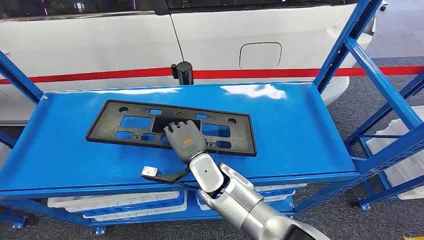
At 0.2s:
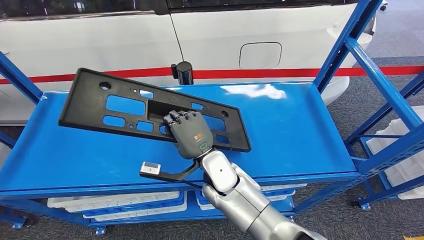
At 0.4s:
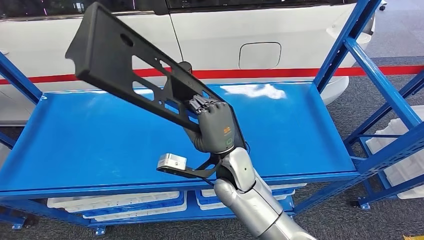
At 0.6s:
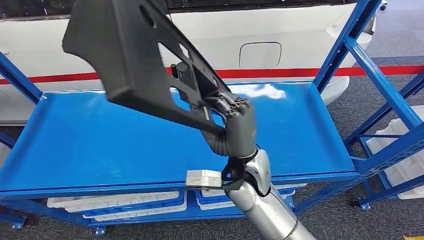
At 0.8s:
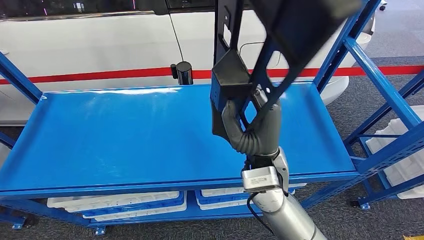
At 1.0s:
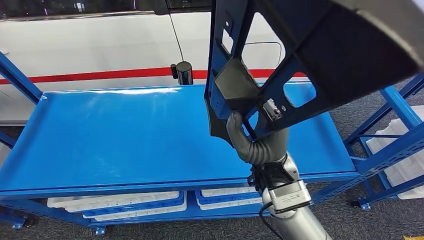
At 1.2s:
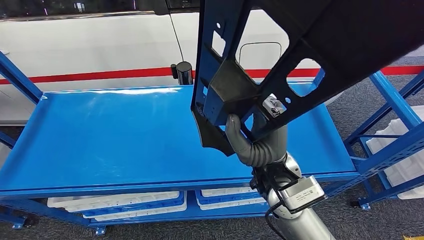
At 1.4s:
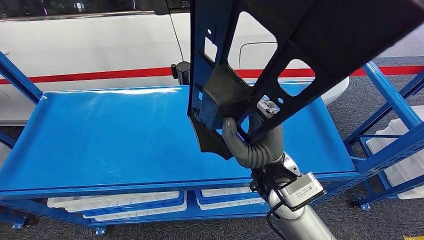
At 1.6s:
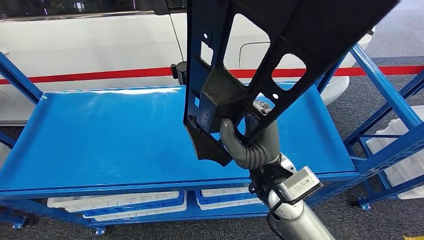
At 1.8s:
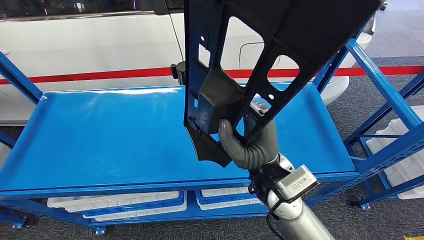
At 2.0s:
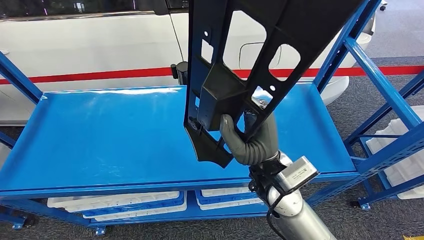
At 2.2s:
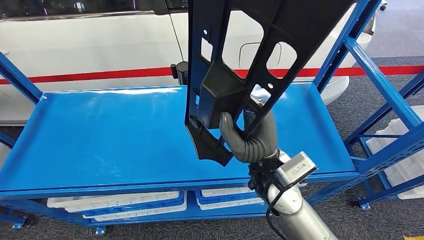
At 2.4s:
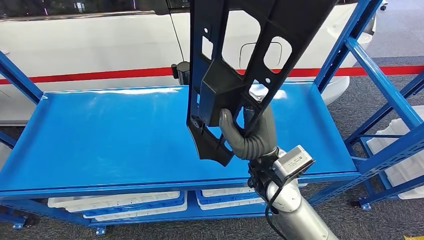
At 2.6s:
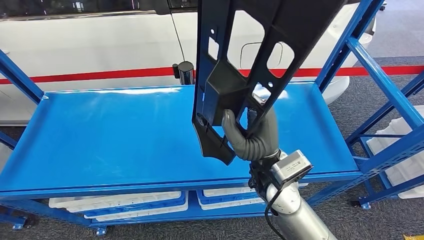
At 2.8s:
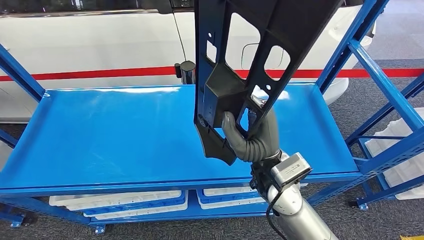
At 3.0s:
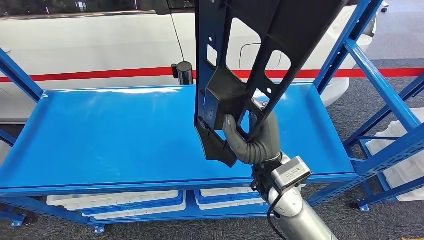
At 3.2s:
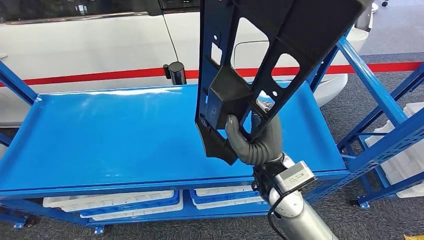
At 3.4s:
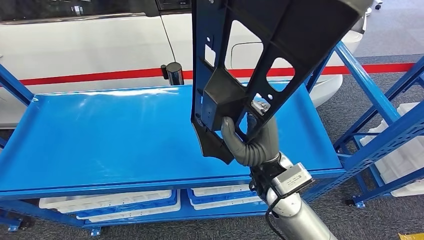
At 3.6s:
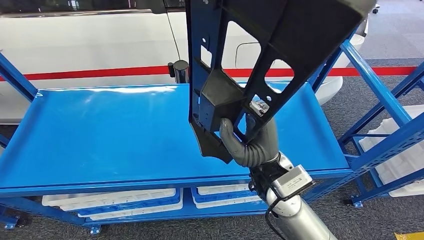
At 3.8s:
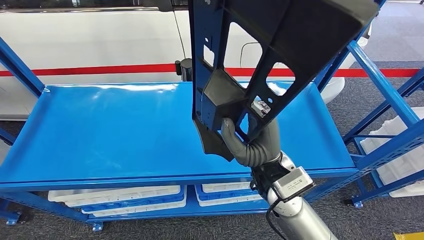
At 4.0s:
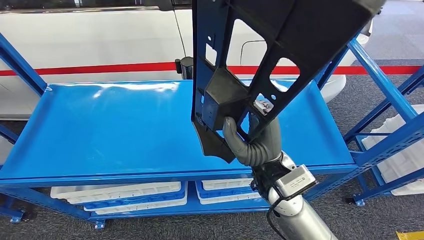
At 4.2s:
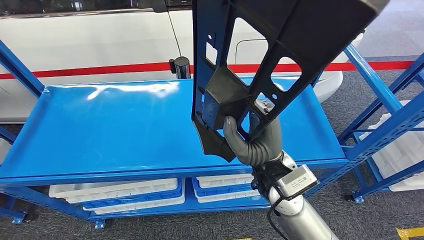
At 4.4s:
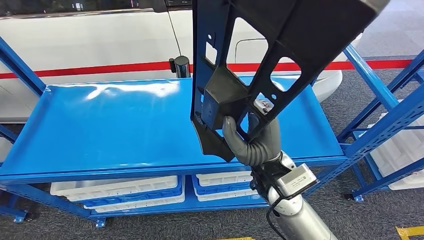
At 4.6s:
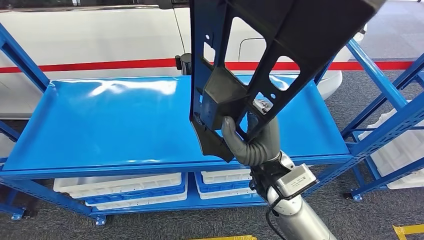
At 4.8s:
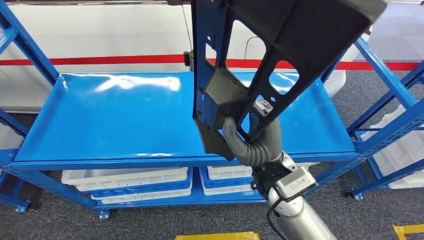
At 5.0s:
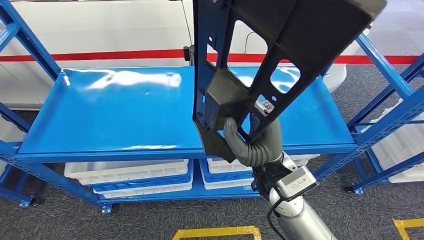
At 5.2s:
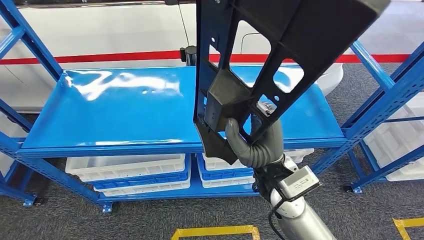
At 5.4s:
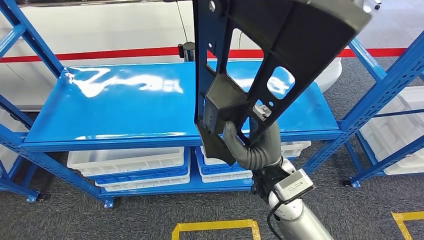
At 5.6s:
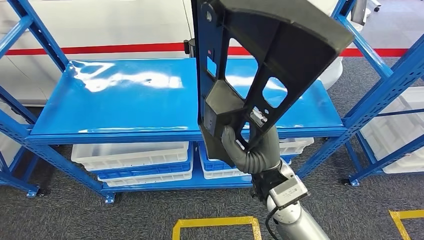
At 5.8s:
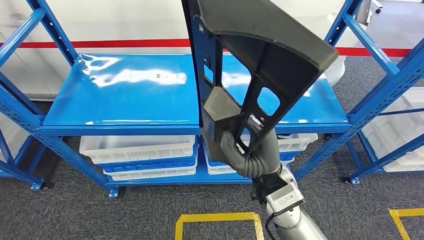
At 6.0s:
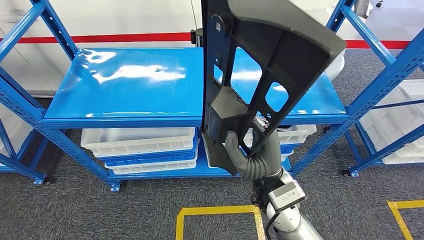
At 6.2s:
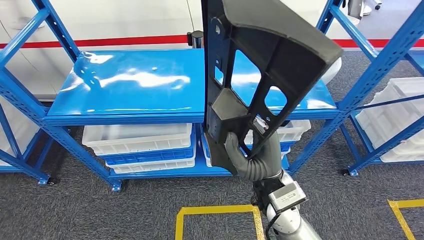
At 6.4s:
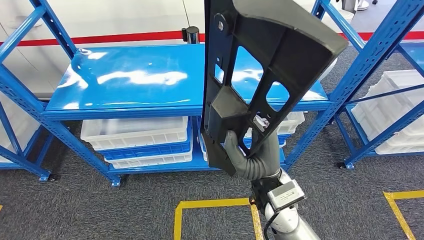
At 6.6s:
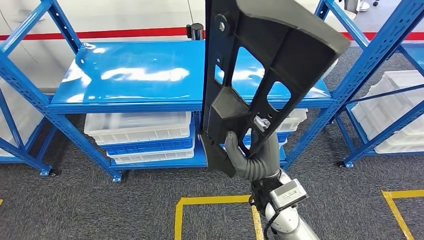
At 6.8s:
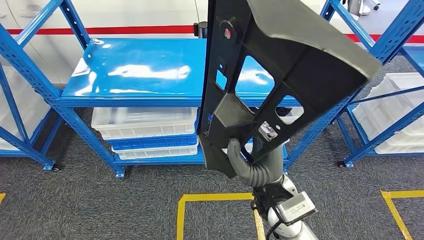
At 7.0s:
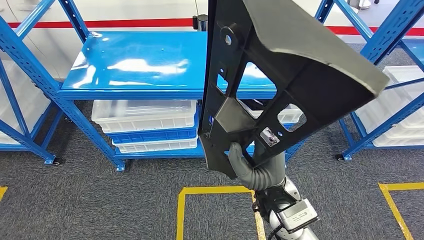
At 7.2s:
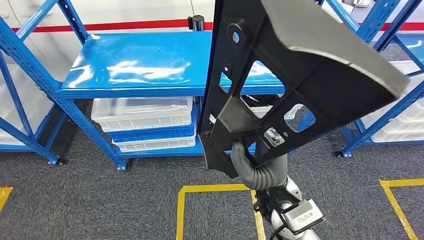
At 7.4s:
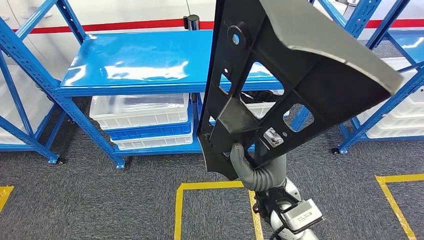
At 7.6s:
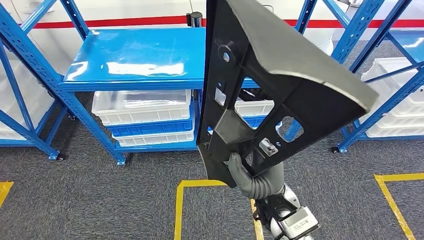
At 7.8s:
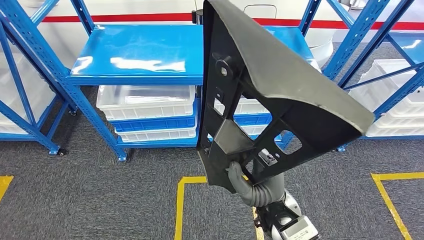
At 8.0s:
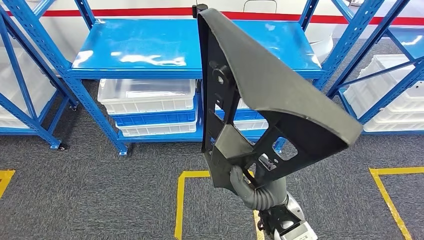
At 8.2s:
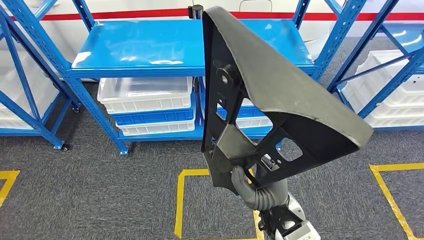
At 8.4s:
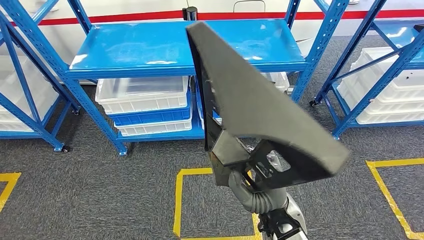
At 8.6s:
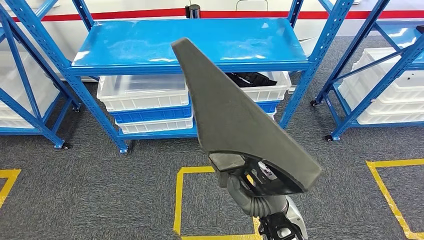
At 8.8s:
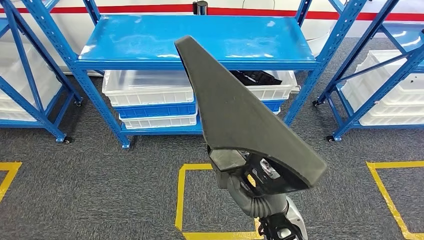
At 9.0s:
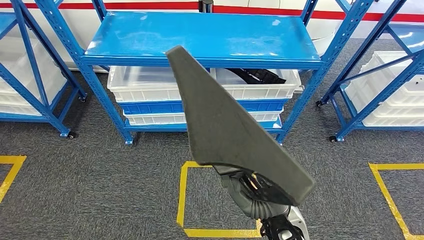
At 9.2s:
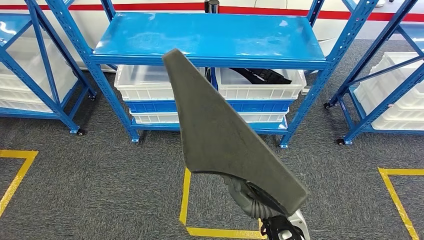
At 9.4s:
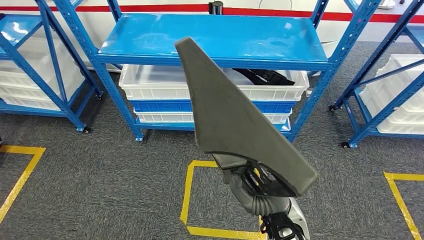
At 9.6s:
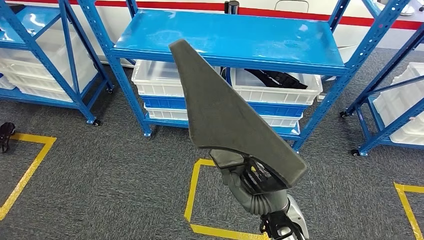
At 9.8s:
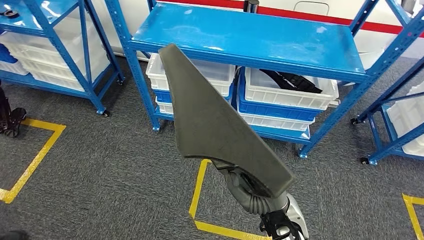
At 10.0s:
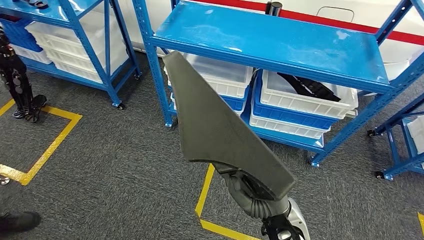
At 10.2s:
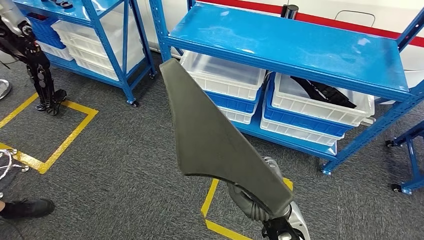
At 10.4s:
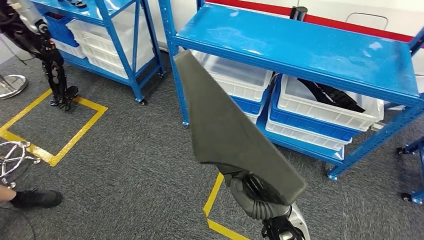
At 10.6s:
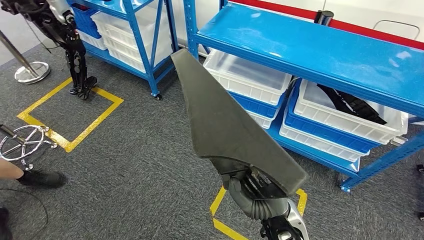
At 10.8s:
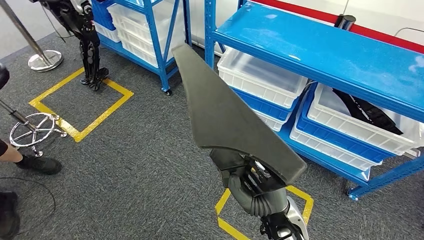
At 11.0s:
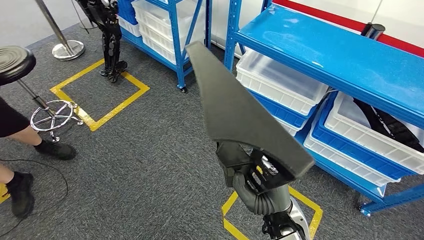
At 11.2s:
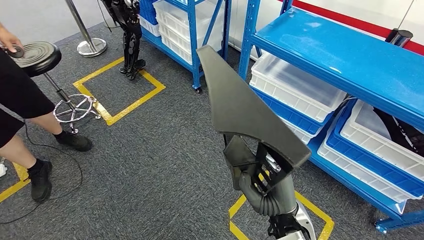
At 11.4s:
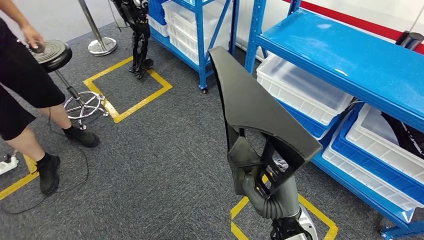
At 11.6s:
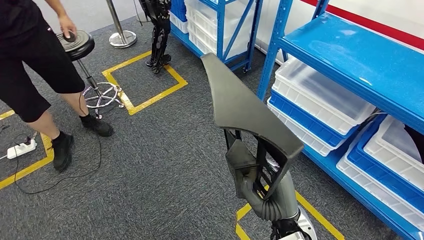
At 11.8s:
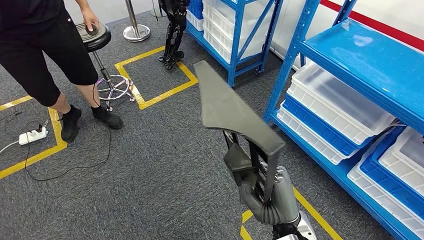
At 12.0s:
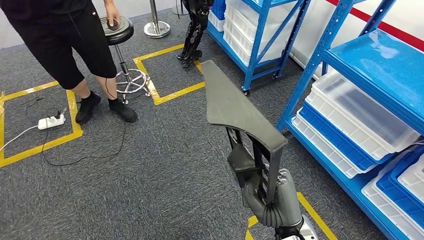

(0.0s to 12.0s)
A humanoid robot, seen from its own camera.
Step, 0.0s - 8.4s: Pick up the large material from the shelf.

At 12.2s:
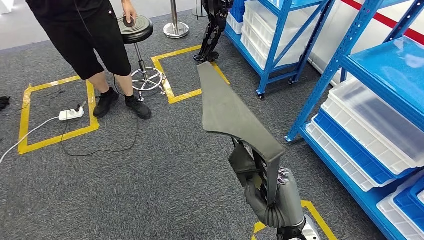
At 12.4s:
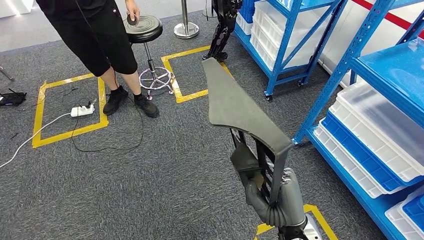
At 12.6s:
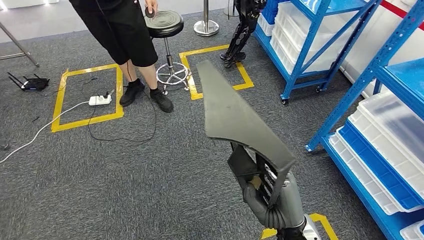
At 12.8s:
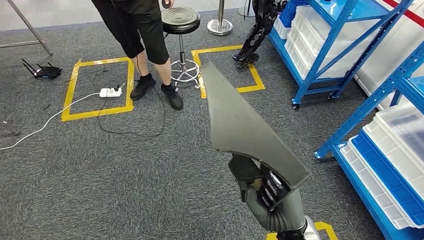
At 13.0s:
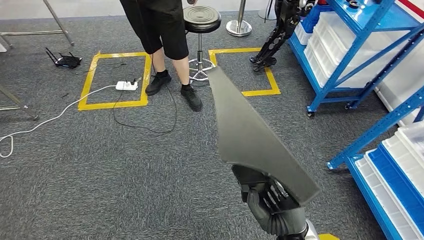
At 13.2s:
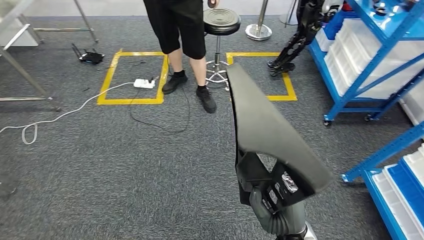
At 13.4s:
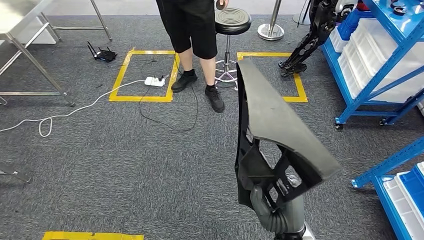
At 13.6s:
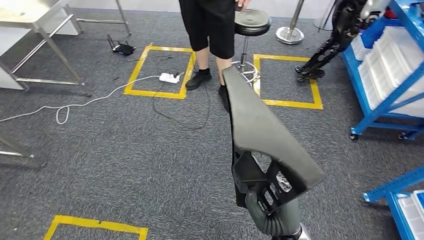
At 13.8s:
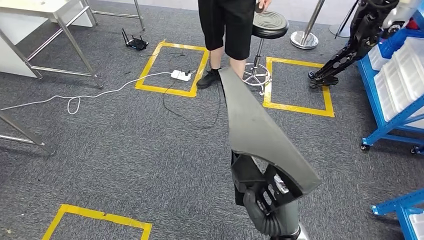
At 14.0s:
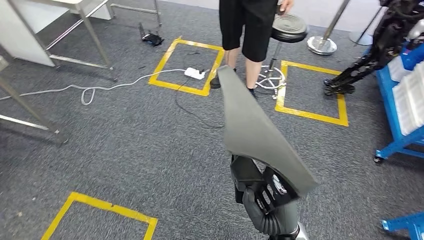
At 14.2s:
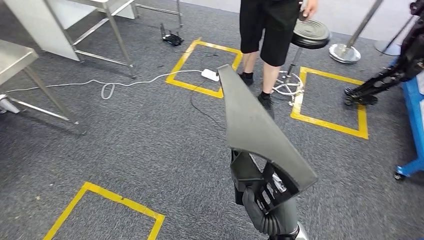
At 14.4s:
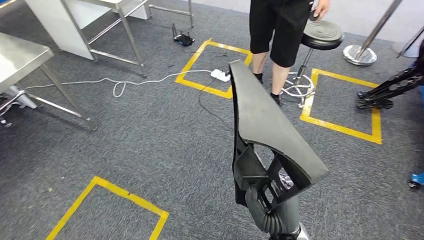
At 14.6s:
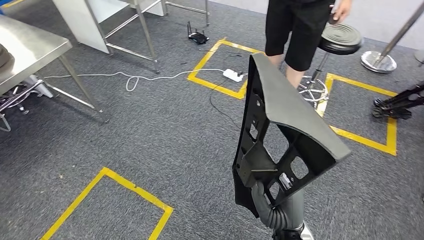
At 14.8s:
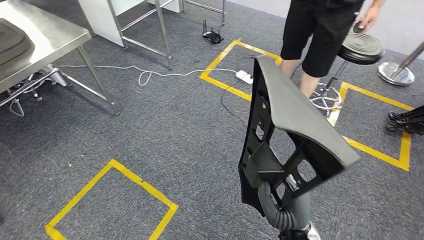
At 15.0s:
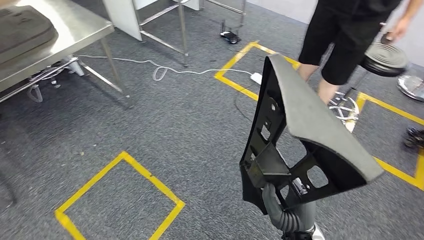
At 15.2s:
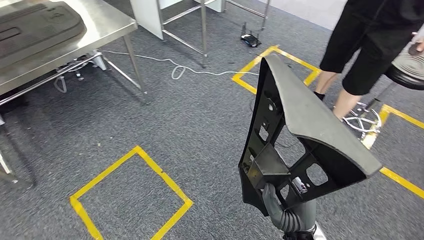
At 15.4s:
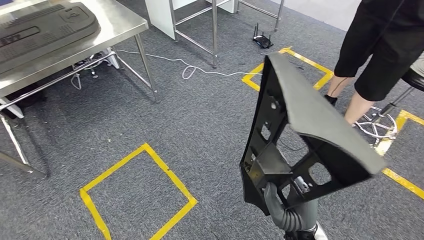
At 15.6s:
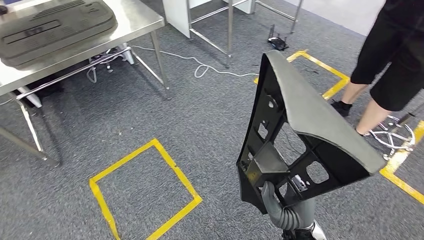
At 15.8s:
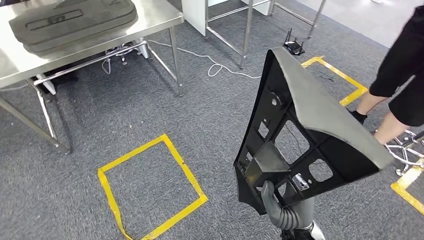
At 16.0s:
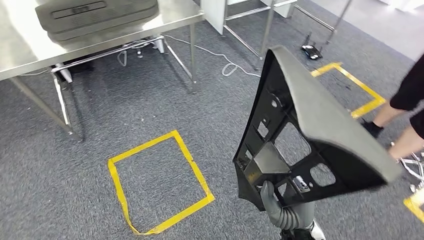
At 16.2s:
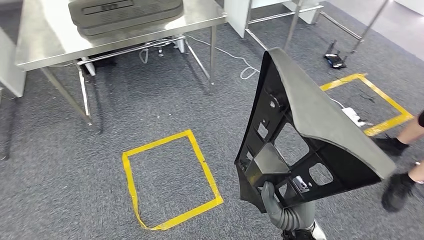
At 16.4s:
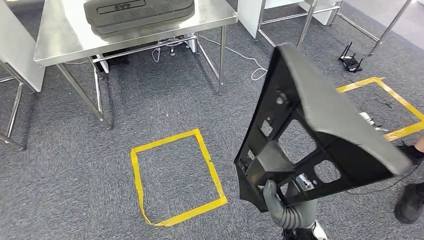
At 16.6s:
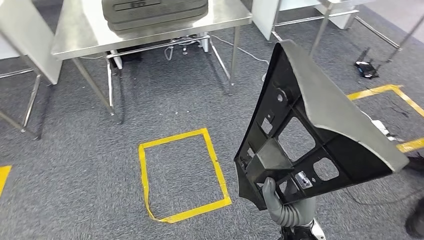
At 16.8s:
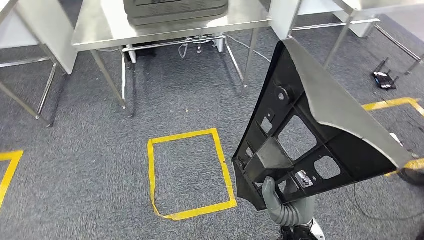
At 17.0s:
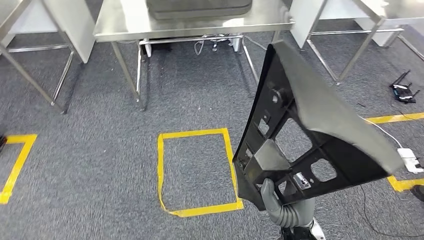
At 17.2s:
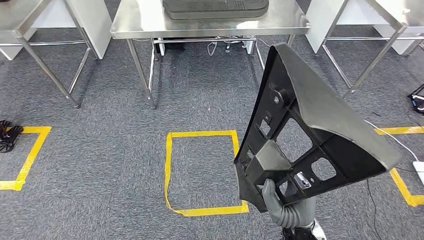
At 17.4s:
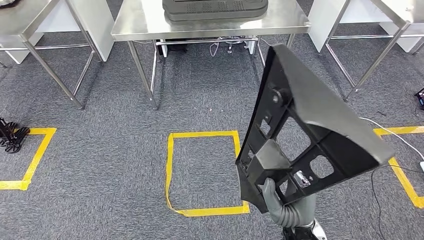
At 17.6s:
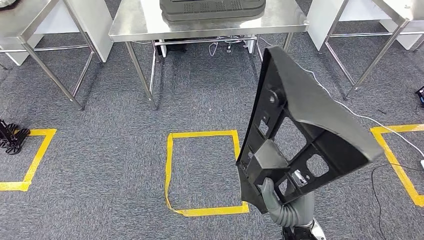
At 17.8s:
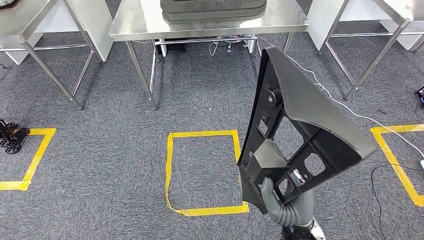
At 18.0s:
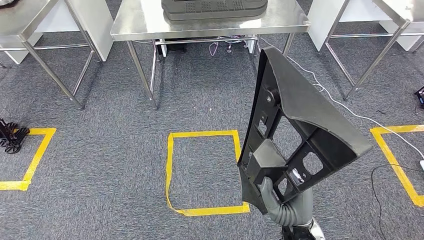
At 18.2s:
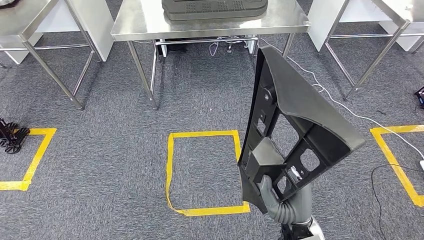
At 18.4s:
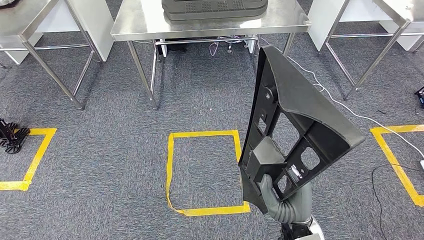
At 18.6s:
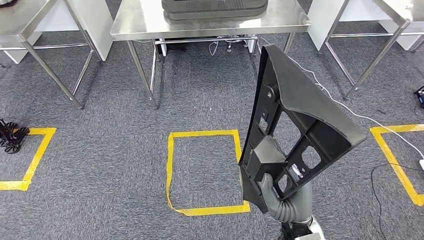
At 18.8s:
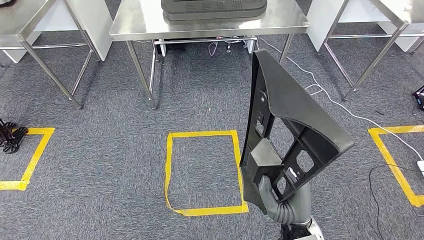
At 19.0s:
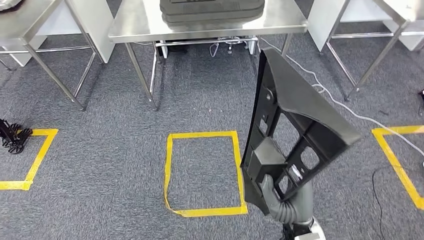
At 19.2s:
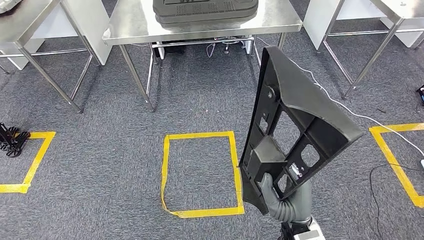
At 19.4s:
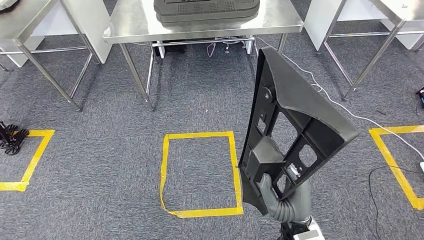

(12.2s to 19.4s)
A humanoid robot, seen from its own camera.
18.0s - 19.4s: Neither hand changes place.
